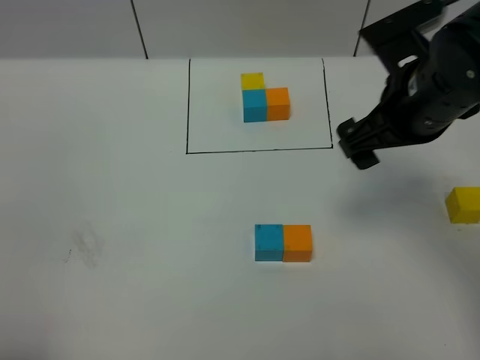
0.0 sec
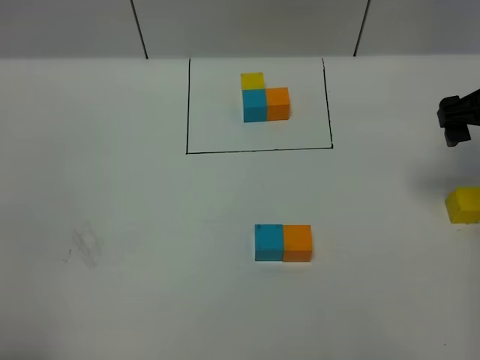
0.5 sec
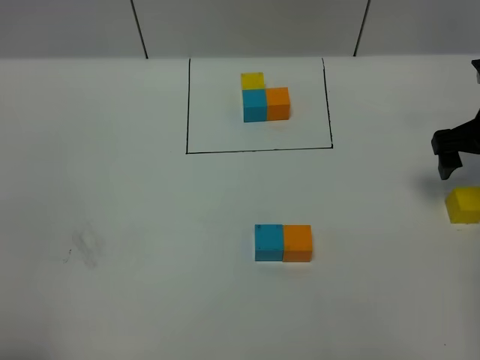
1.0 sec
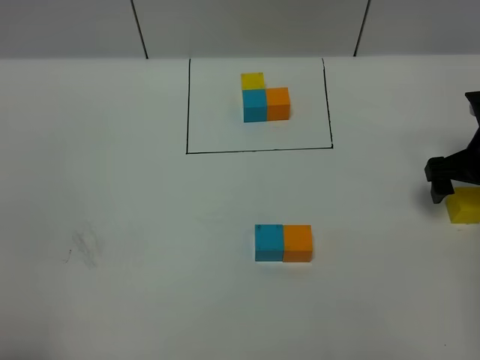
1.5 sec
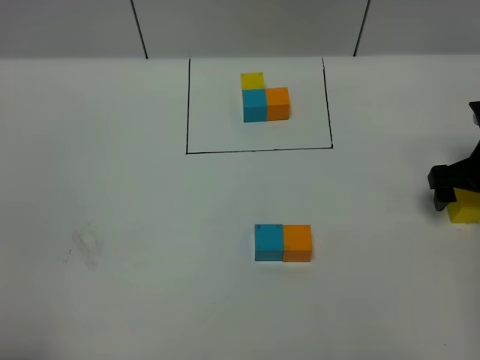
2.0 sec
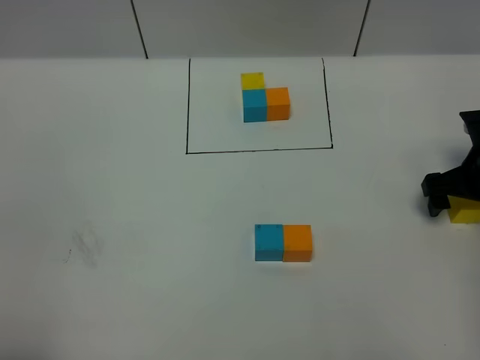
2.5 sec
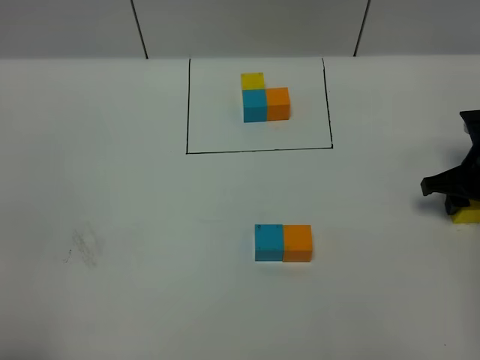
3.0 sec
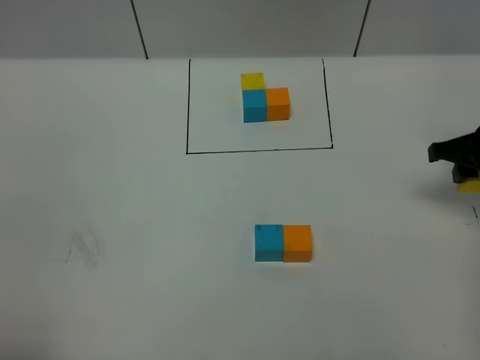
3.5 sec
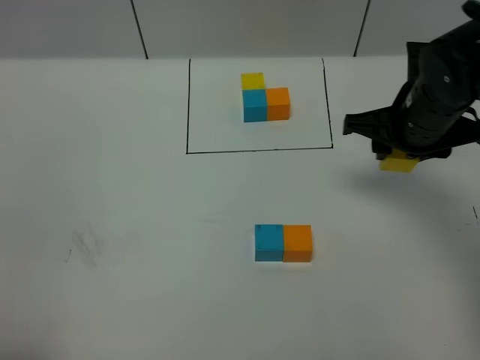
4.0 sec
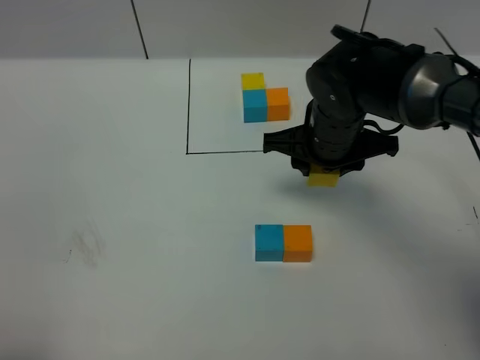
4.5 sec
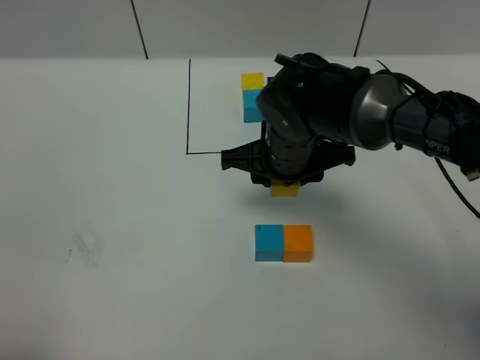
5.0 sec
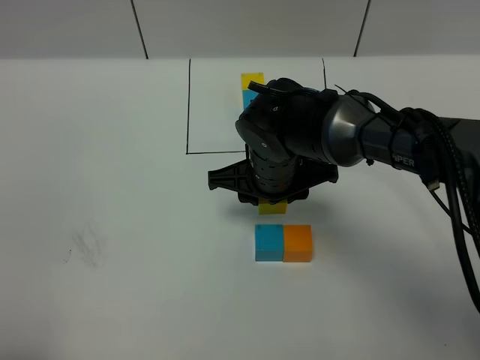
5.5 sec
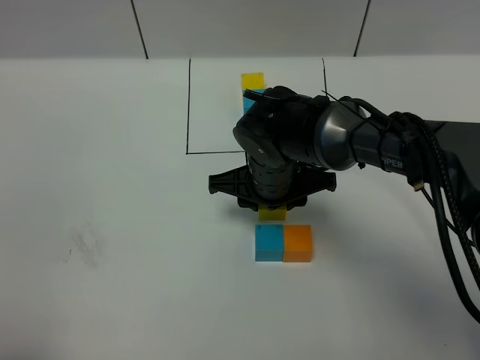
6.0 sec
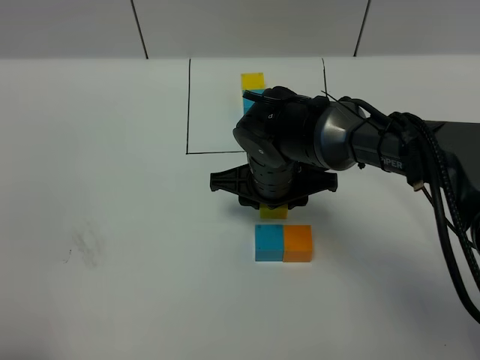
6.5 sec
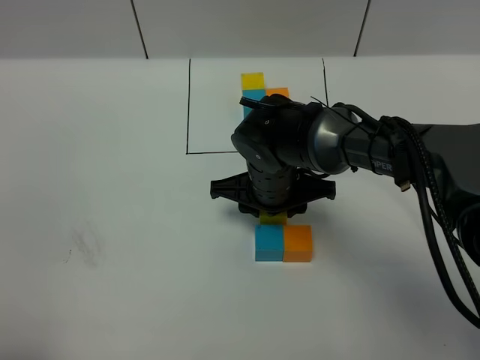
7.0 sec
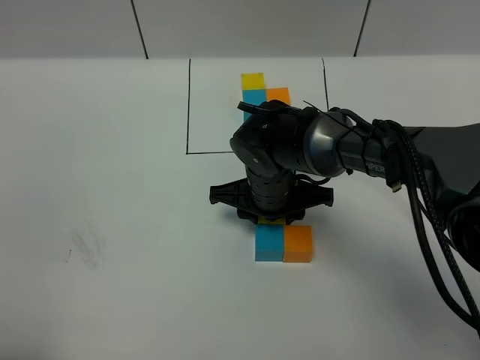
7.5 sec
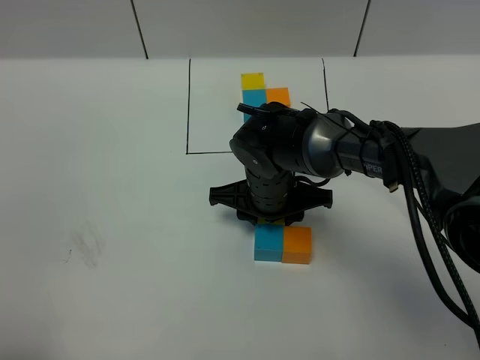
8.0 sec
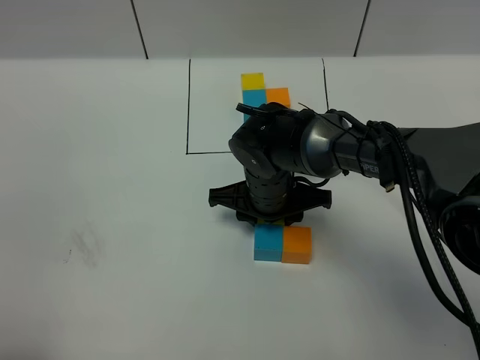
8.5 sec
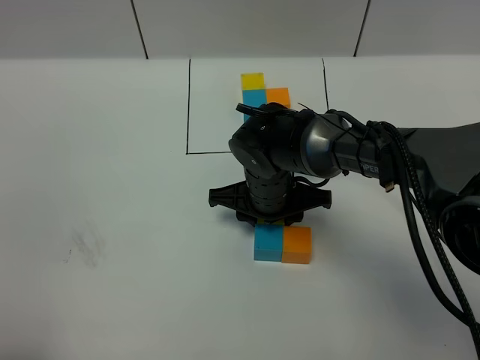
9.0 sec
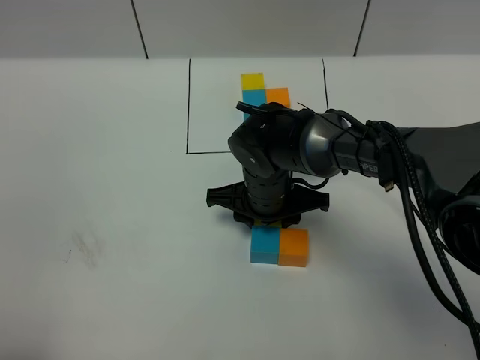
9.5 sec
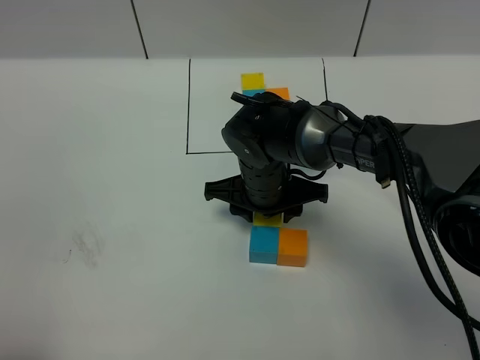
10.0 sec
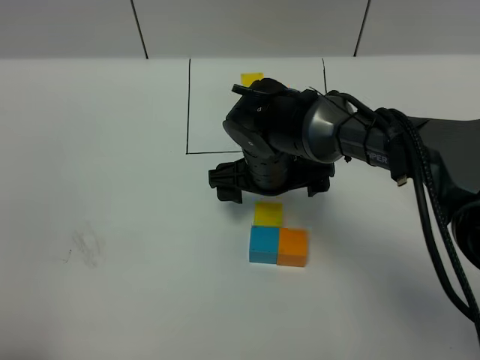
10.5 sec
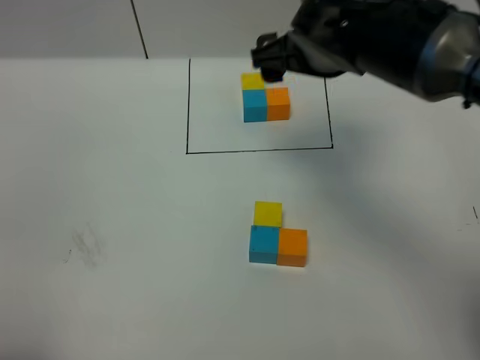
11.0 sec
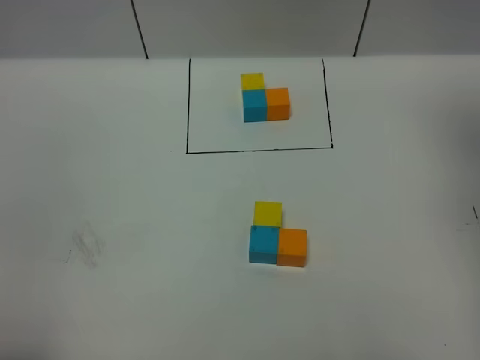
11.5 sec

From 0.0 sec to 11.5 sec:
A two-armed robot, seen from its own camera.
Task of the whole recording: According to the building block template in front, assemble the scattered blocks together.
Step, from 0.0 sec to 10.0 sec: Put the yellow cube on the behind of the blue cube.
From 0.0 sec to 2.0 sec: The right gripper heads downward and to the right, covering some 20 cm.
From 2.0 sec to 4.0 sec: The right gripper heads to the left and upward, covering roughly 15 cm, and closes its fingers.
From 4.0 sec to 6.0 sec: The right gripper moves to the left and downward, approximately 20 cm.
From 6.0 sec to 7.5 sec: The grippers stay close to where they were, moving slightly.
From 7.5 sec to 9.5 sec: Both grippers stay about where they are.
From 9.5 sec to 11.5 sec: The right gripper travels upward and to the right by approximately 40 cm, and opens.

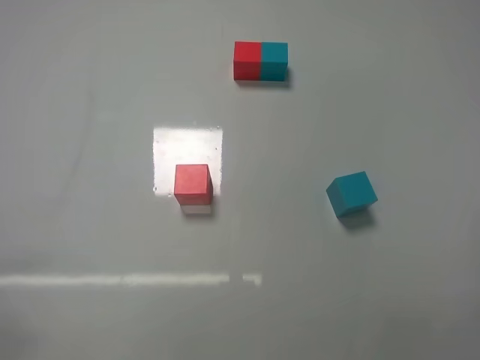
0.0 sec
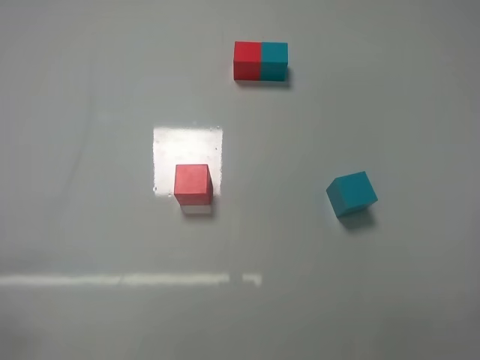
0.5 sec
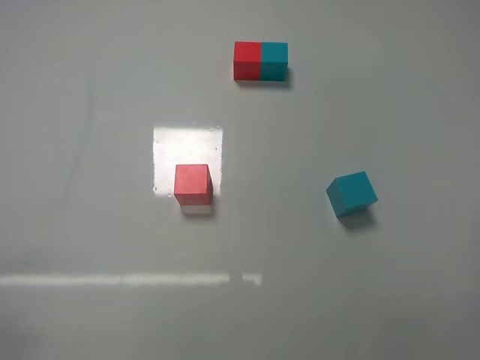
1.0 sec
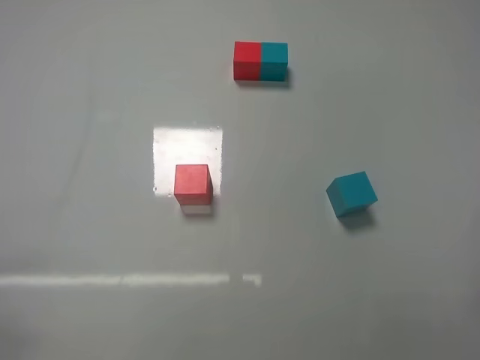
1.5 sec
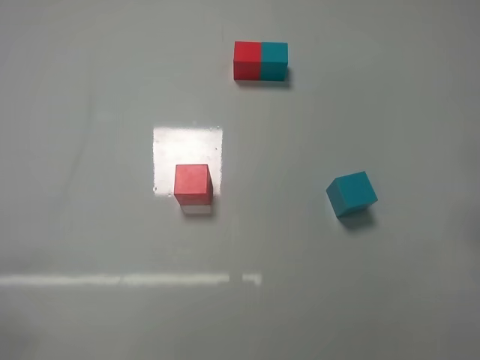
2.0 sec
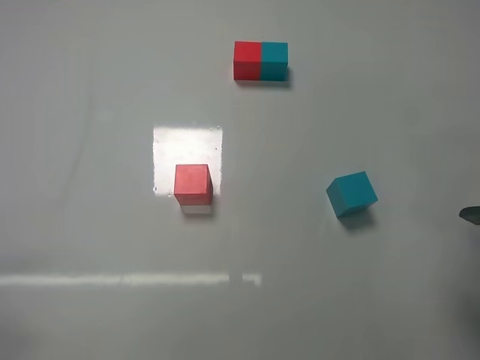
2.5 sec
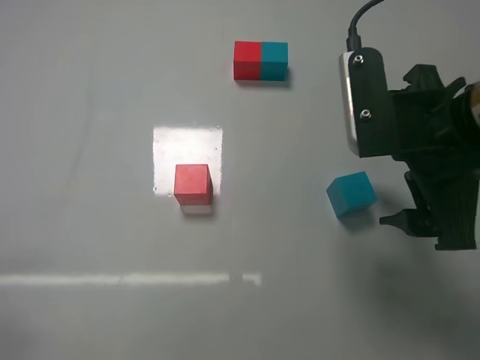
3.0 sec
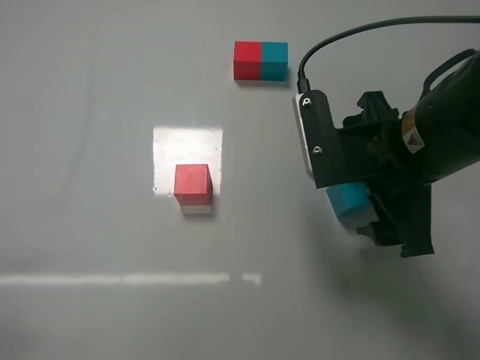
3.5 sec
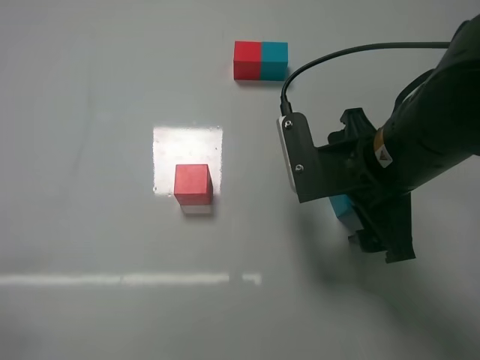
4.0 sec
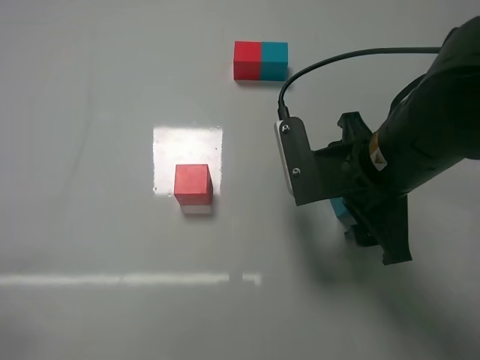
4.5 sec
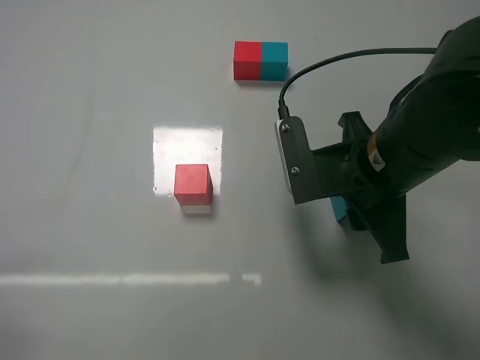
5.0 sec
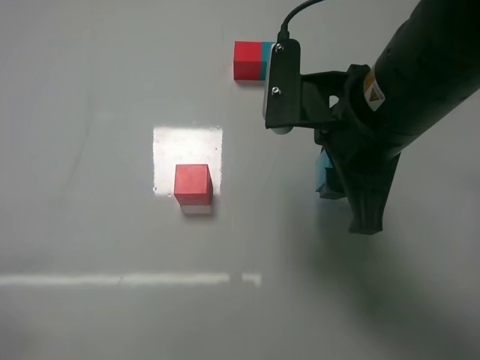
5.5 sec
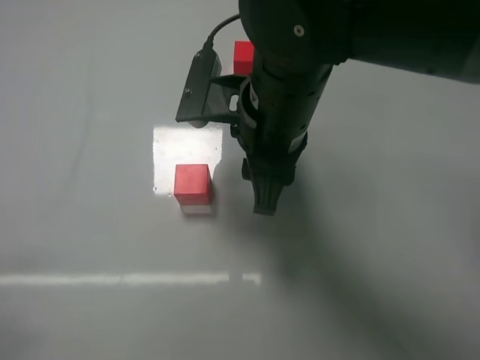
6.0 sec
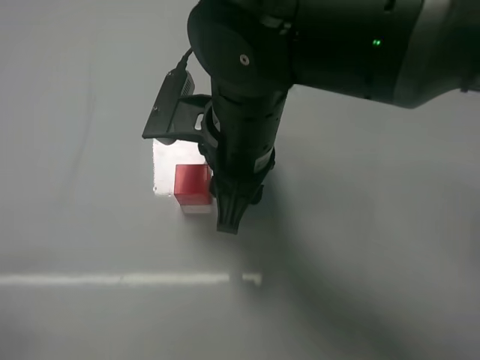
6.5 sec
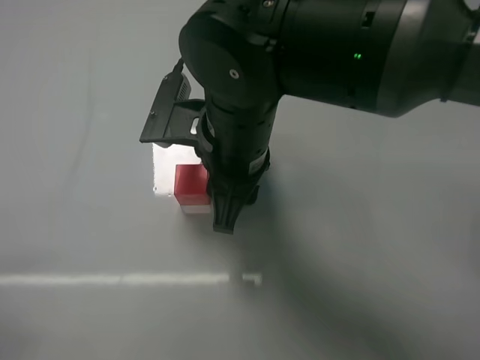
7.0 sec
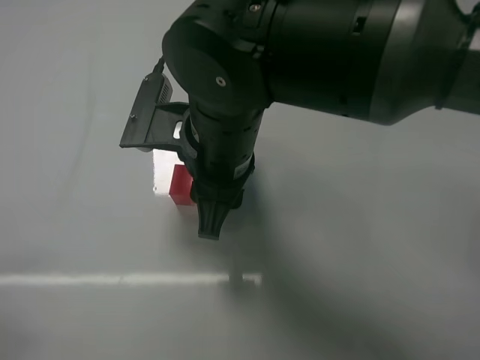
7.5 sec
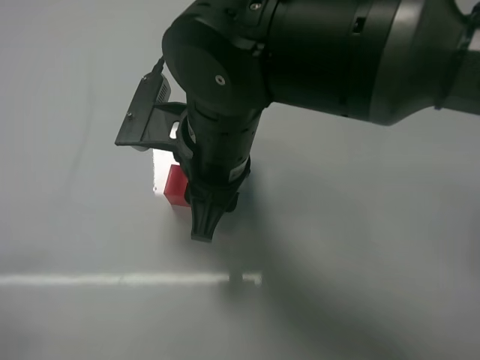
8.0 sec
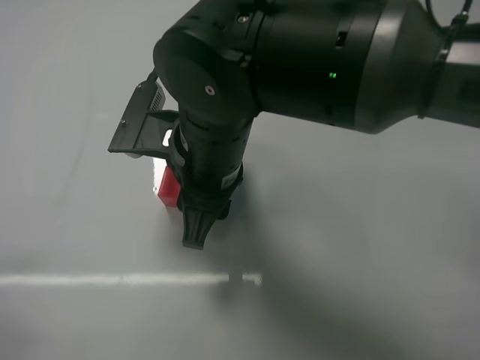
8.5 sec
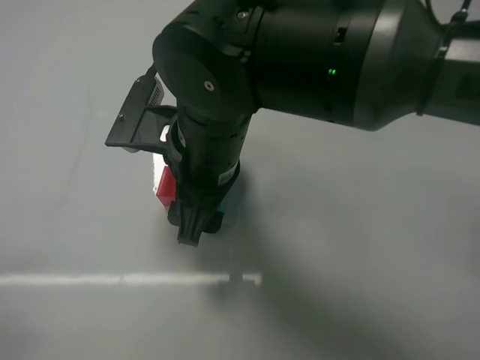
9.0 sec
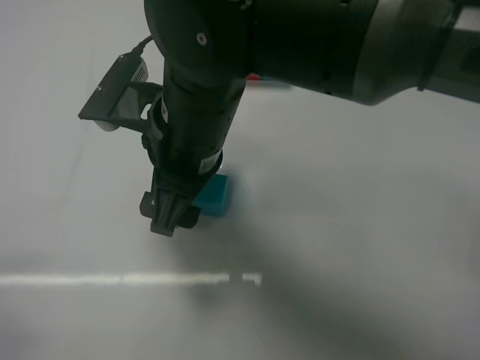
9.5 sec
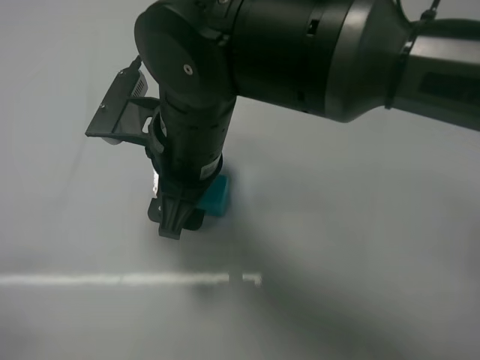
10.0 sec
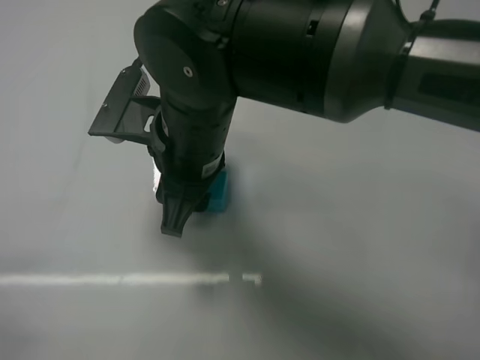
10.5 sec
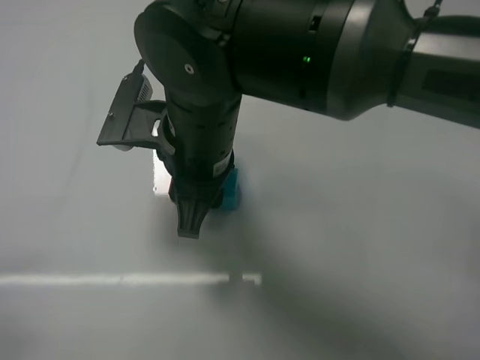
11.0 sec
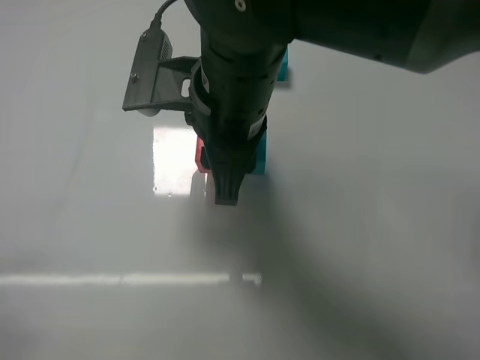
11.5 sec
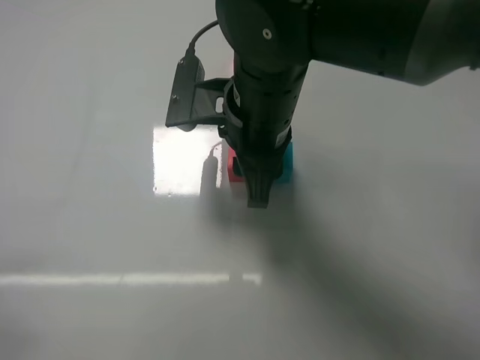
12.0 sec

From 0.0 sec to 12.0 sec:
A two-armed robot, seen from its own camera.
Task of the whole recording: According to the building block template in front, assemble the scattered blocks together.
Step, from 0.0 sec to 4.5 sec: Grasp the blue block with right gripper.
Step, from 5.0 sec to 8.5 sec: Put the blue cube on the right of the red cube with the right gripper.
From 2.0 sec to 4.0 sec: The right gripper goes about 20 cm to the left and forward.
From 4.0 sec to 6.0 sec: The right gripper goes approximately 10 cm to the left, and closes its fingers.
From 6.0 sec to 8.0 sec: The right gripper shifts by about 5 cm.
From 8.0 sec to 10.0 sec: The right gripper opens its fingers.
From 10.0 sec to 12.0 sec: The right gripper heads to the right, covering roughly 5 cm, and closes.

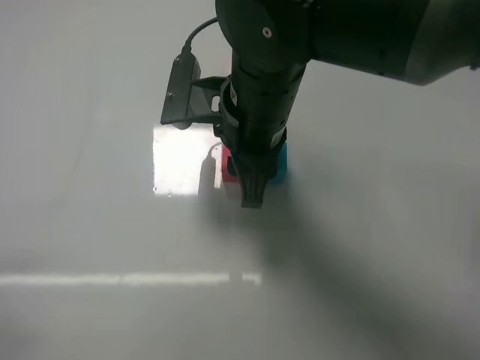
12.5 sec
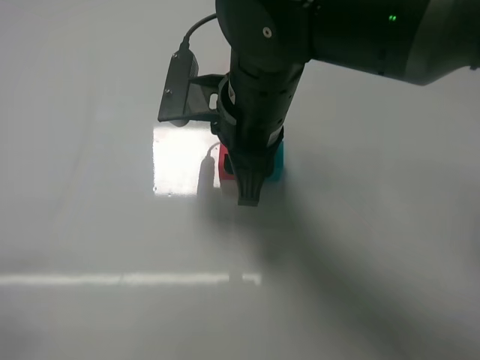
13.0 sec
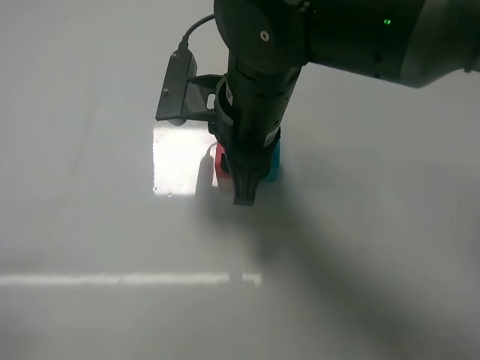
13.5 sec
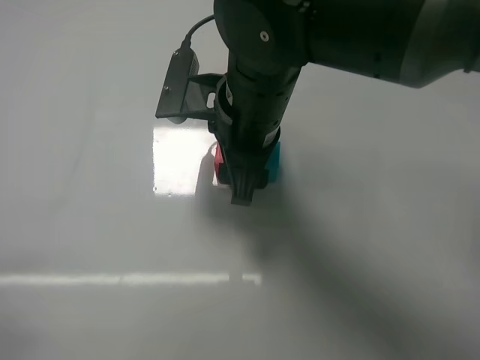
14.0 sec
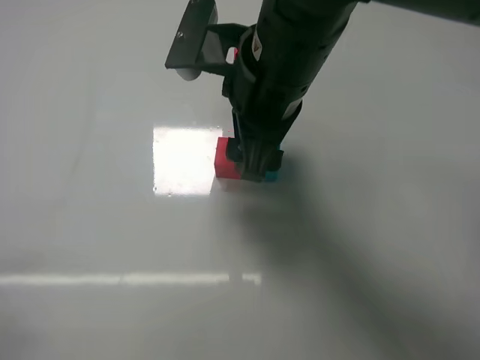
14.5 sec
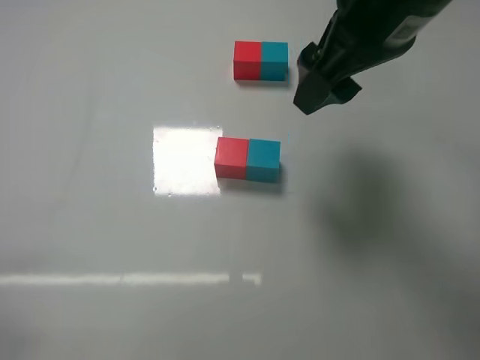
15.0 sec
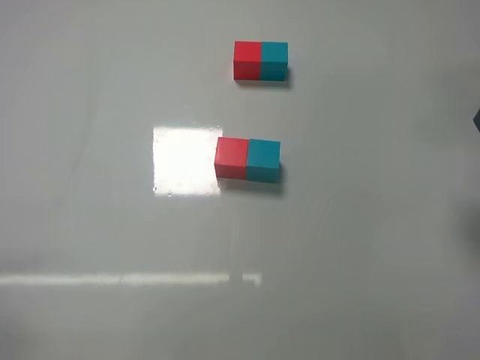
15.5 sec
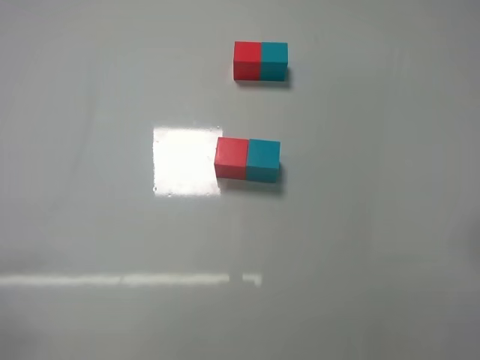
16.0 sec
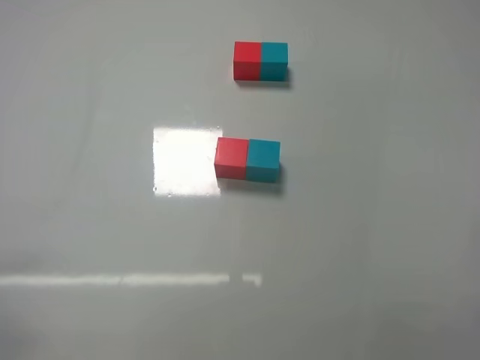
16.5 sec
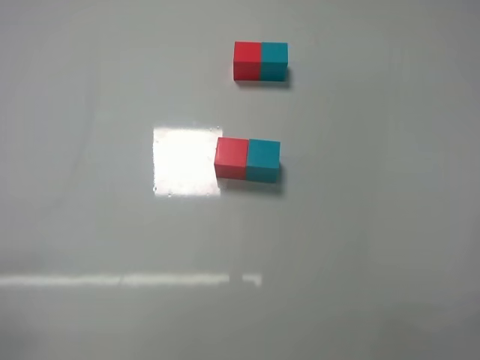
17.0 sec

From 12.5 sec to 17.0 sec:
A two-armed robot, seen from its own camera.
Task of the whole recording: According to the building block template in front, assemble the scattered blocks together.
From 12.5 sec to 14.5 sec: The right gripper shifts by approximately 5 cm, and opens.
From 14.5 sec to 17.0 sec: The right gripper is displaced to the right, backward and downward by approximately 40 cm.
